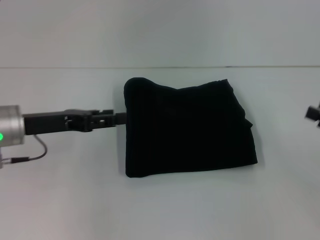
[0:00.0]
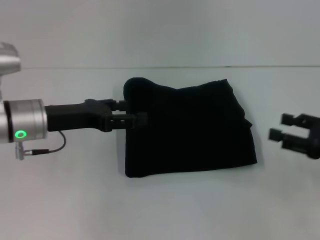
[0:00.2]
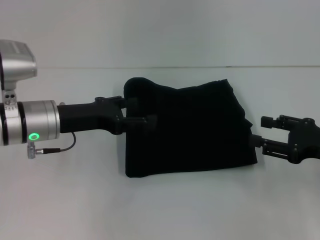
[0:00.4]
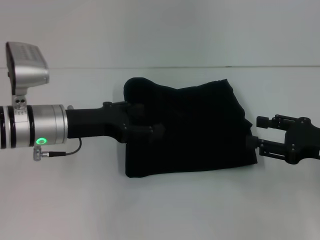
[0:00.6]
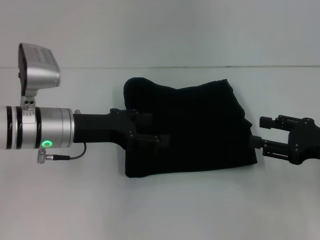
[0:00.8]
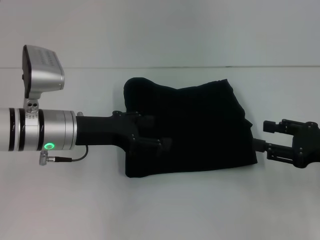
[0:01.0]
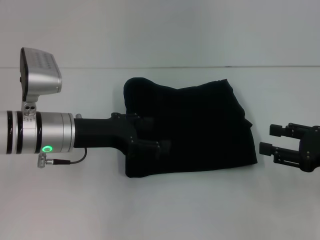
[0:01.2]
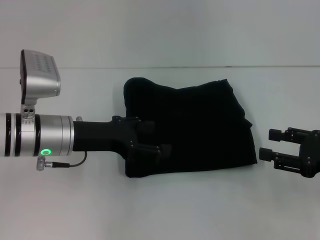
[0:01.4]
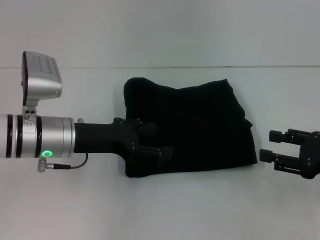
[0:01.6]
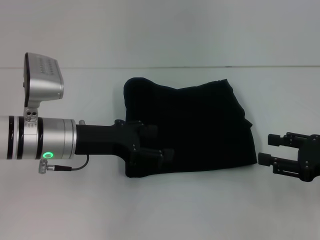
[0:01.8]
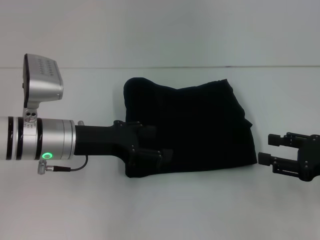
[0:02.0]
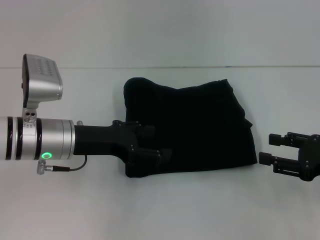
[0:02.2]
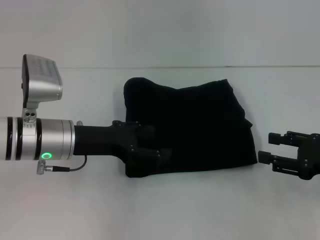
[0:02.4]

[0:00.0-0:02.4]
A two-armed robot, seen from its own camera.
0:00.0 to 0:01.2: The left gripper heads to the right, covering some 5 cm, and opens up. Meanwhile the right gripper shifts approximately 5 cm to the left.
0:01.2 to 0:02.4: The two grippers keep their place.

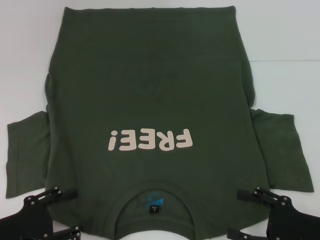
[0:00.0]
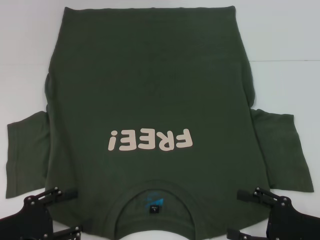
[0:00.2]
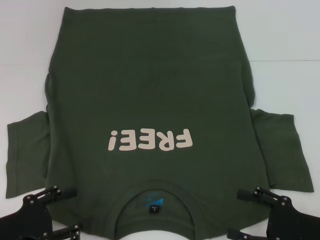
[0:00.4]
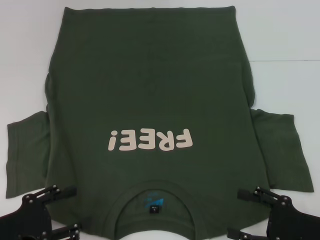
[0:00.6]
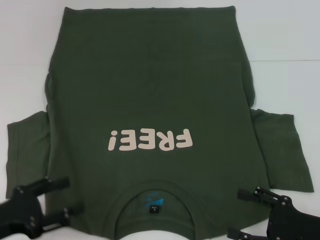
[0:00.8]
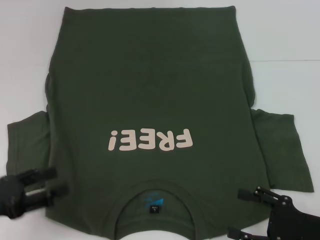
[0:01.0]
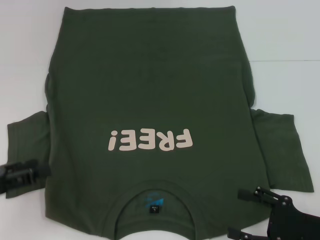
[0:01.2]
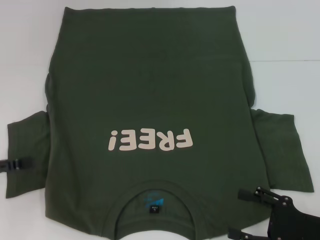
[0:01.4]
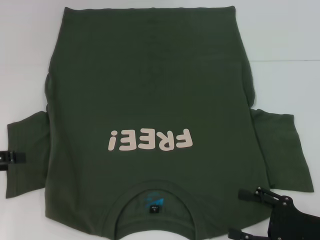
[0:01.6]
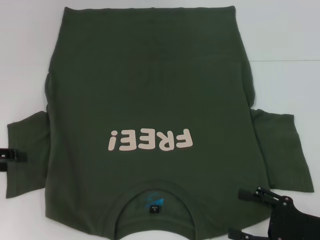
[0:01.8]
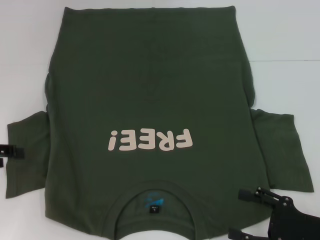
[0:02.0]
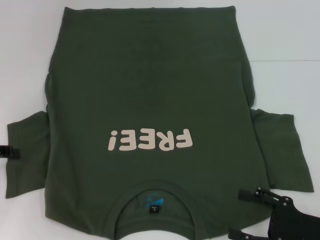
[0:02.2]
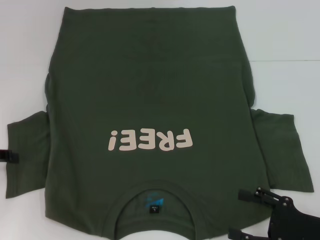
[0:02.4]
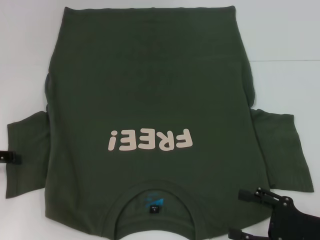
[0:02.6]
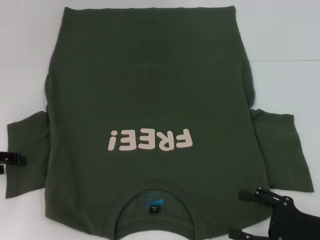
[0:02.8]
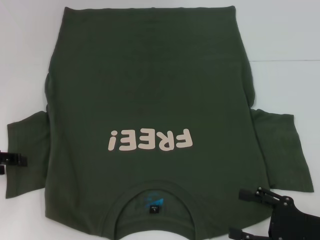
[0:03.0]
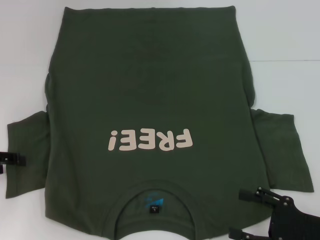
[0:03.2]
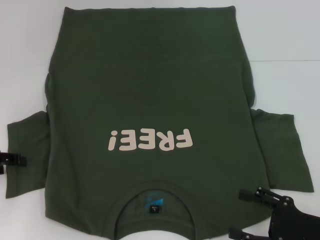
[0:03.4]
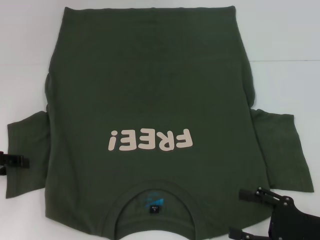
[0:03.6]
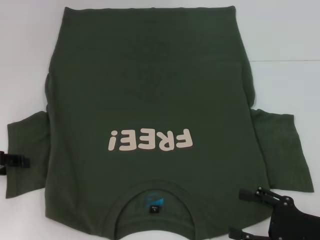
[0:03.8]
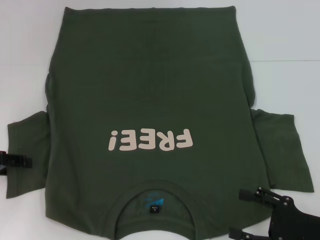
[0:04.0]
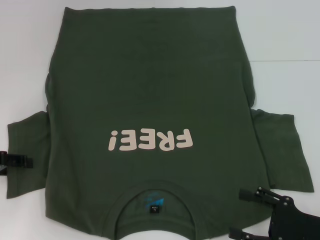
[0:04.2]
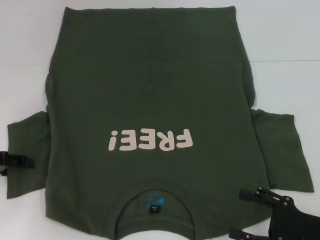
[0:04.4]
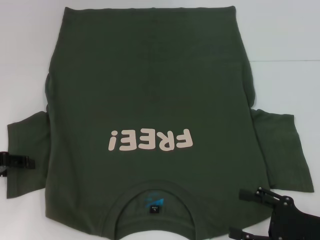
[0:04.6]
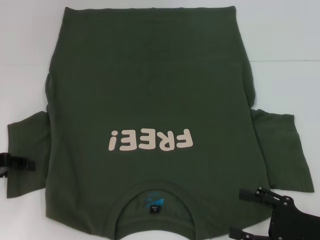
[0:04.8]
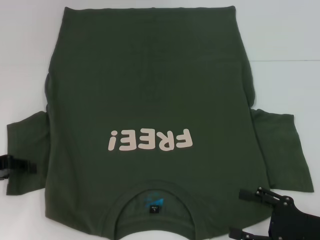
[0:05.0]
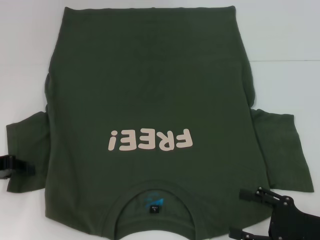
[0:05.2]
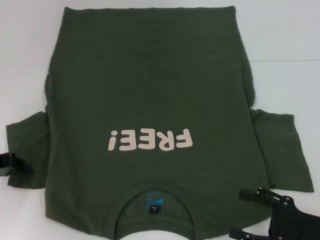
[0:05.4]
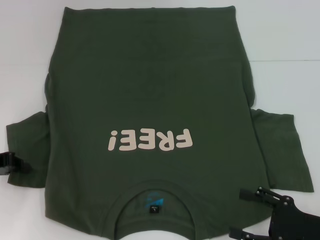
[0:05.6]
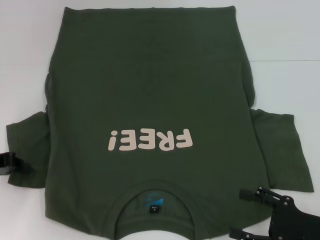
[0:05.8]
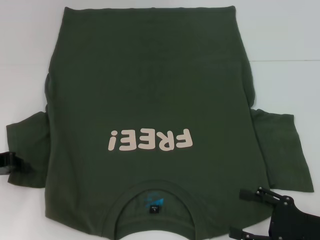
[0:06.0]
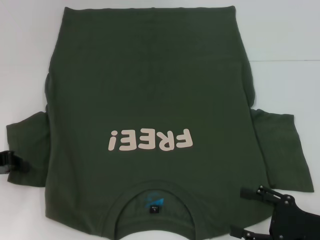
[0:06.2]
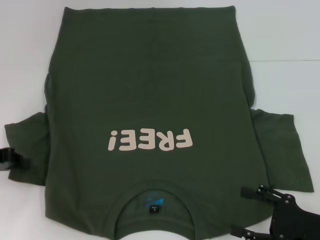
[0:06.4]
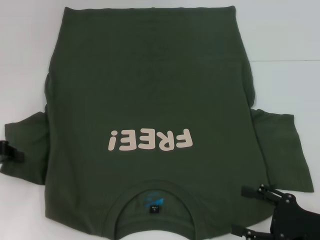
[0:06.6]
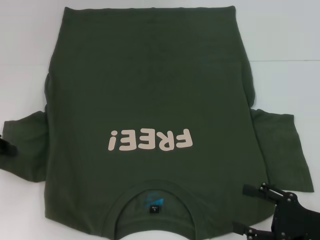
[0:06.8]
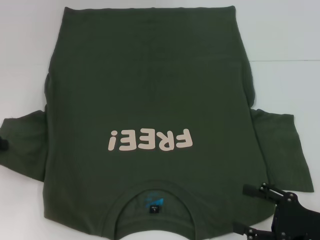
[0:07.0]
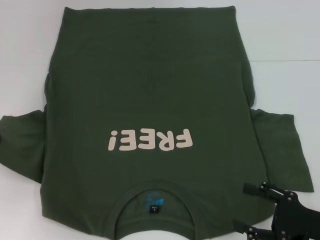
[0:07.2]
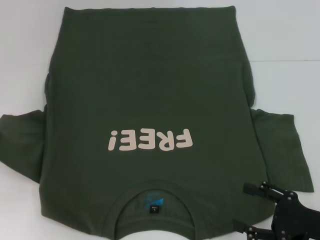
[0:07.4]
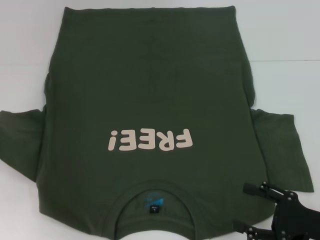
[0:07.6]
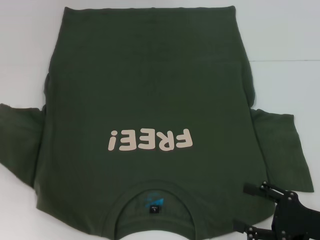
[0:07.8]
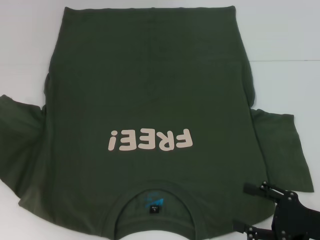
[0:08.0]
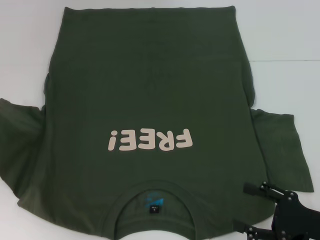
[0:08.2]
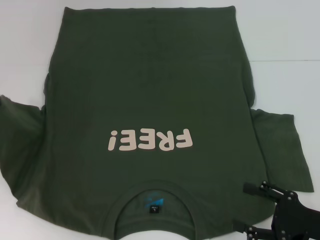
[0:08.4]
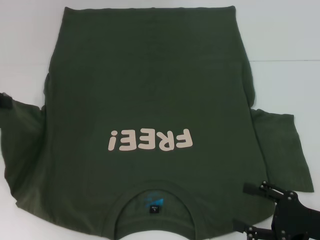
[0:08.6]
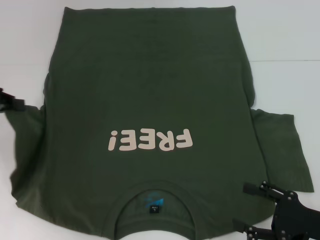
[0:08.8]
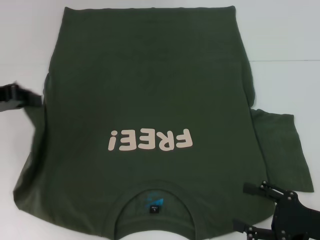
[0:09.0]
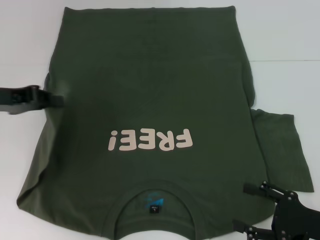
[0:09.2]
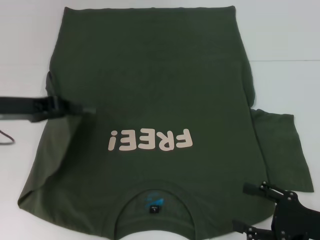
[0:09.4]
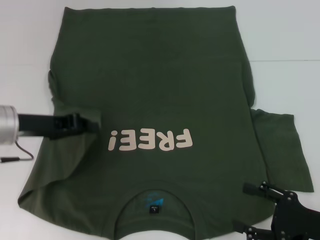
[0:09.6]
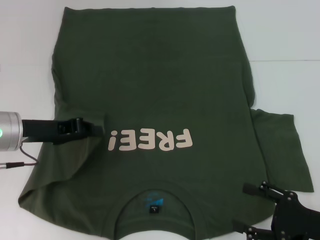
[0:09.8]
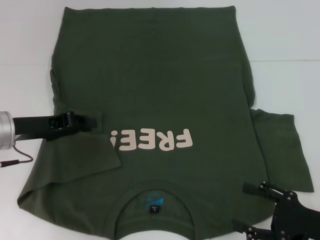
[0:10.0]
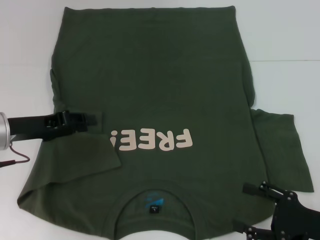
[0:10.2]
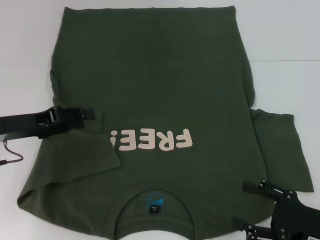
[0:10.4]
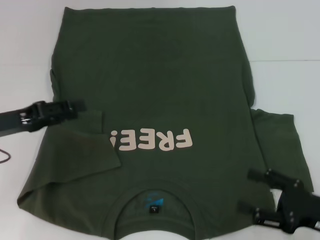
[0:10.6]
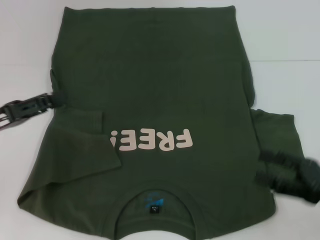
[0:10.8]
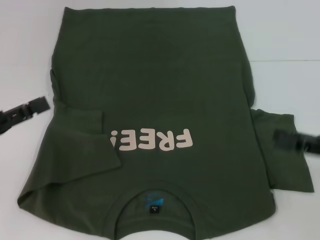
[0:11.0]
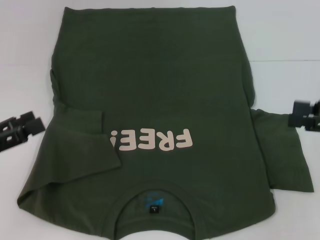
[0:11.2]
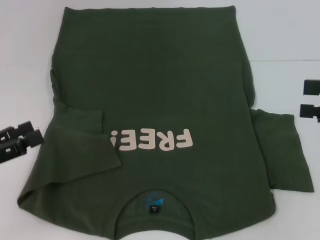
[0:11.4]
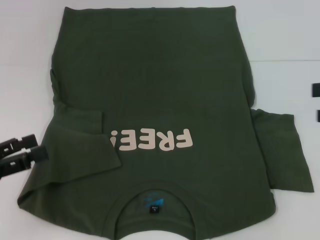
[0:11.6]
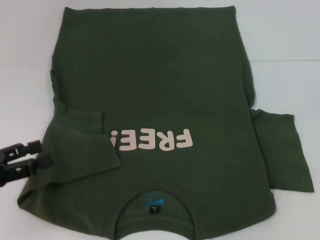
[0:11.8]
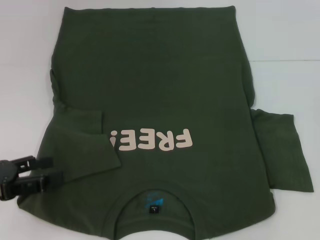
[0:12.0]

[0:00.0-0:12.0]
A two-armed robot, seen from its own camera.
Step, 0:00.0 to 0:10.0: Fold the bottom left sleeve with your left hand.
0:00.0 to 0:01.6: The left gripper moves forward, upward and to the left, approximately 15 cm.
0:03.0 to 0:04.4: Both grippers stay about where they are.
0:04.4 to 0:06.0: The left gripper closes.
0:06.0 to 0:07.6: The left gripper travels upward by approximately 5 cm.
0:07.6 to 0:09.0: The left gripper is displaced to the right by approximately 5 cm.
0:09.0 to 0:10.4: The left gripper is displaced downward by approximately 5 cm, and opens its fingers.
0:10.4 to 0:12.0: The right gripper shifts some 25 cm upward, to the right and forward; the left gripper heads backward, covering some 10 cm, and opens up.

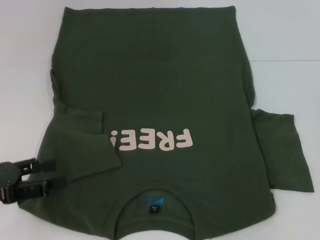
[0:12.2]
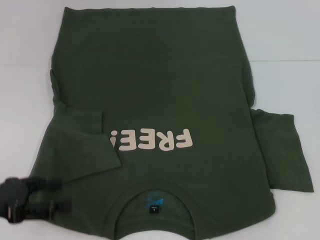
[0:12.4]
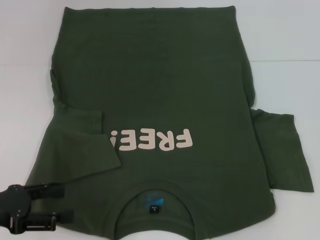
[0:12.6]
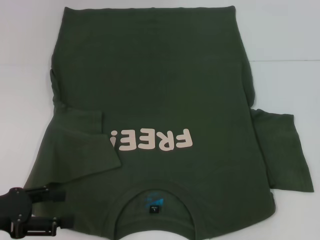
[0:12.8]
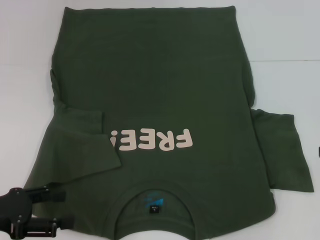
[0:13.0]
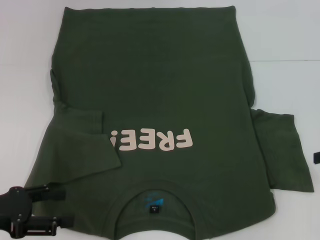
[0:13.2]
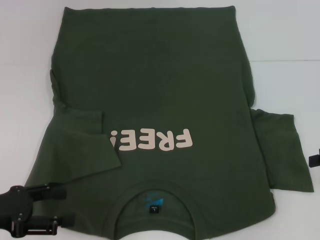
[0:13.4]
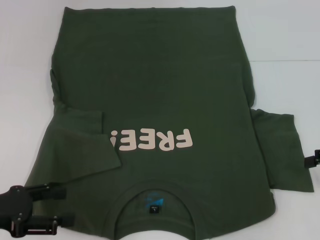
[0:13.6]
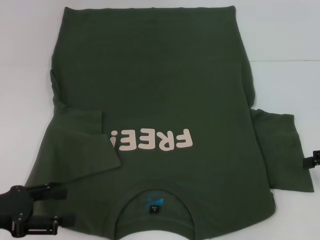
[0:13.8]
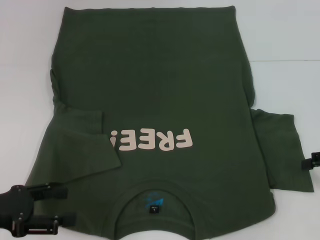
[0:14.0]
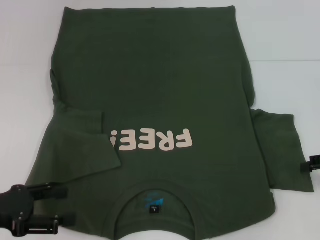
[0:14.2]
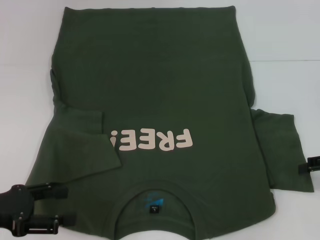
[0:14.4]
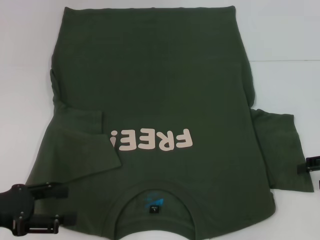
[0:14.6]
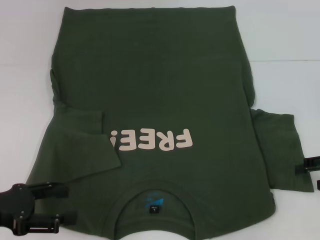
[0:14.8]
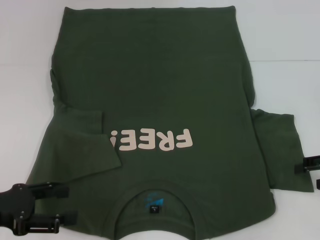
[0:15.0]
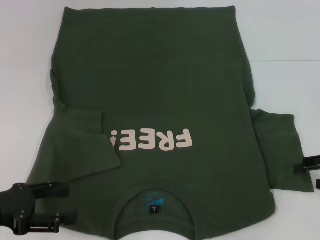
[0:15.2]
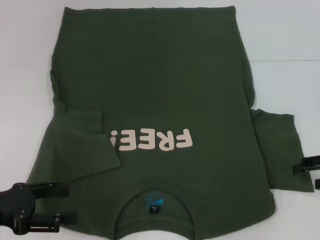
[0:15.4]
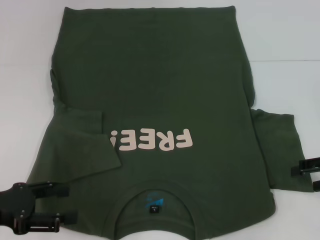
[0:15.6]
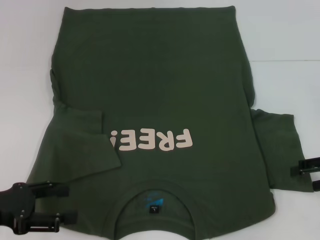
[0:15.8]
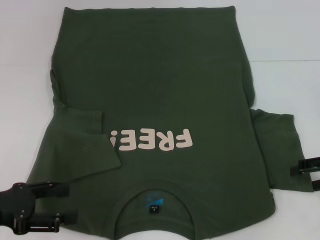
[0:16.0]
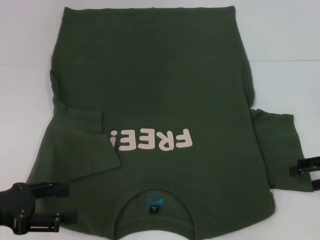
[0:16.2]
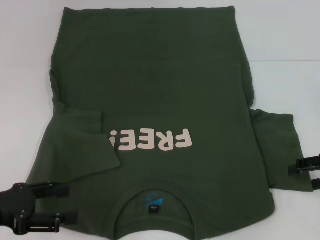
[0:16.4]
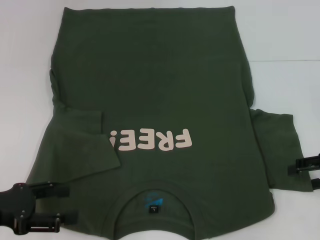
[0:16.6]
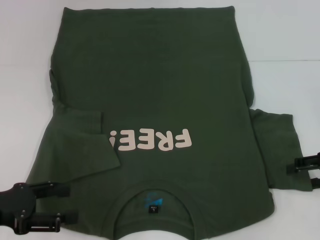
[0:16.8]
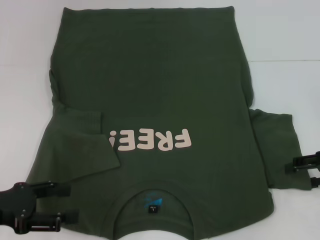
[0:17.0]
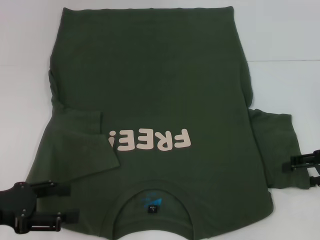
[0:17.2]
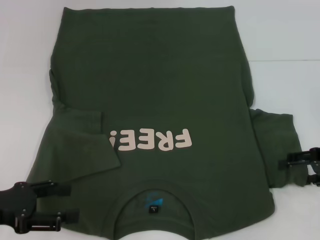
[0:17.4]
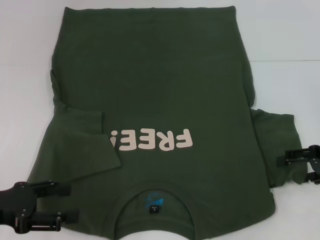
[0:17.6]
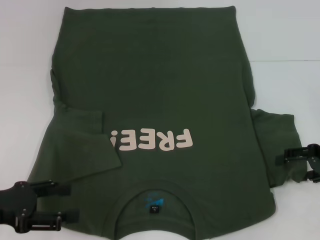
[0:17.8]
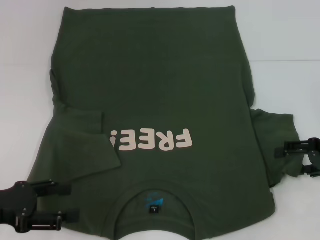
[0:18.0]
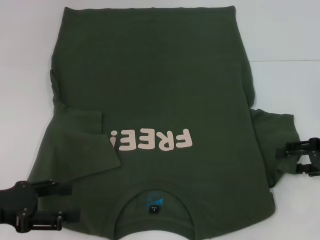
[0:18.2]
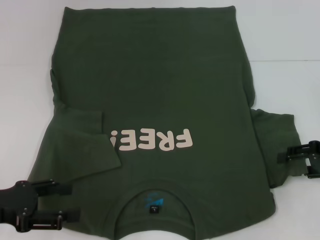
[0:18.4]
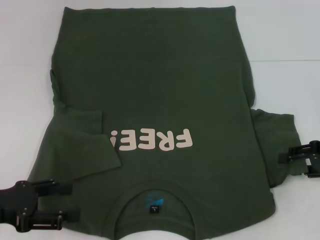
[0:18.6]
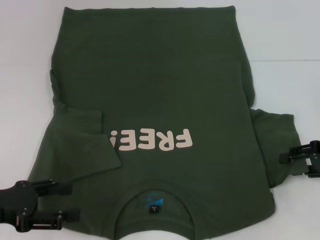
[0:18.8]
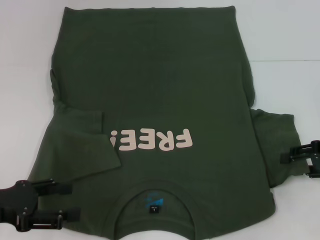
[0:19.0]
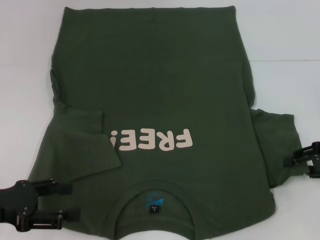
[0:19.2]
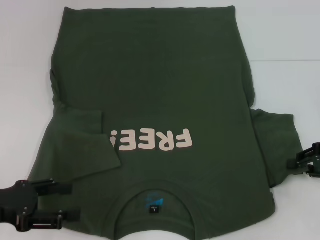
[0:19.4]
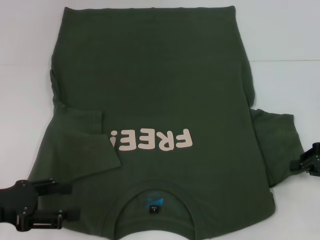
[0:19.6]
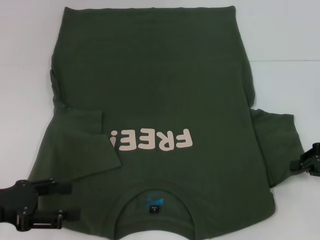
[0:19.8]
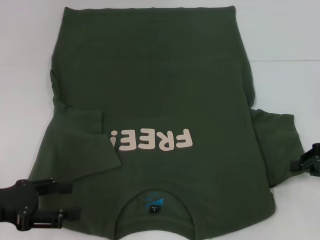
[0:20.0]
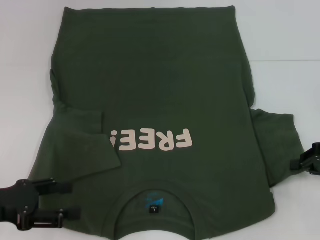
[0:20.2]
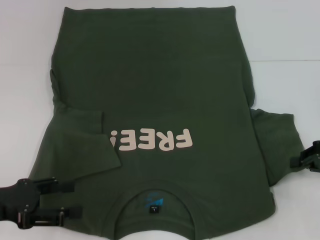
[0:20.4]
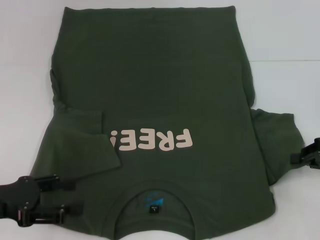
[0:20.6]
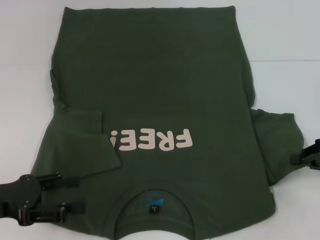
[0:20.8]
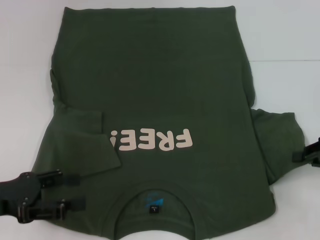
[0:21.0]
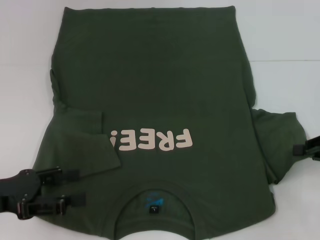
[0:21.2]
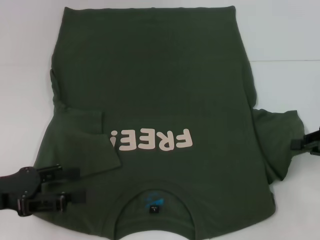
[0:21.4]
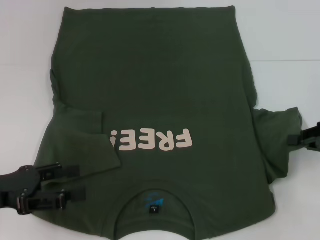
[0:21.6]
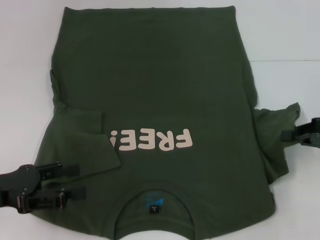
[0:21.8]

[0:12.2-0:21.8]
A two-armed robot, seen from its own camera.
0:13.8 to 0:15.4: The grippers stay close to where they were, moving slightly.
0:15.4 to 0:17.0: Both grippers stay about where they are.
0:17.0 to 0:18.6: The grippers make only small movements.
0:18.6 to 0:20.2: The right gripper closes its fingers.
0:20.2 to 0:21.8: The grippers move only a little.
